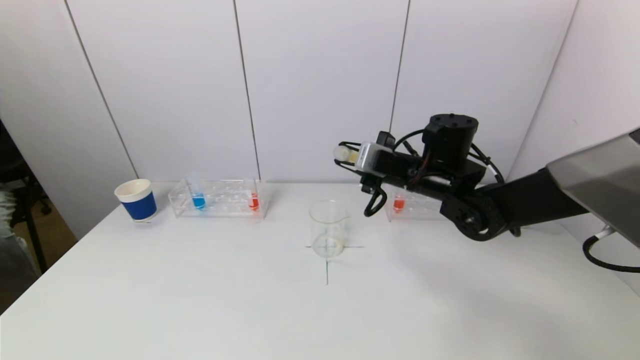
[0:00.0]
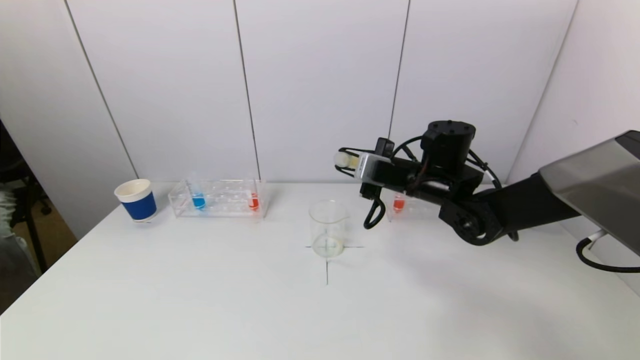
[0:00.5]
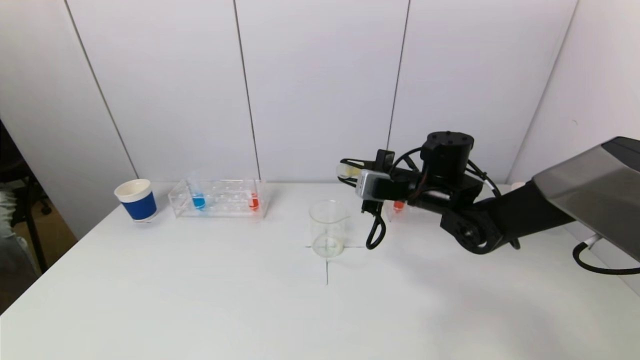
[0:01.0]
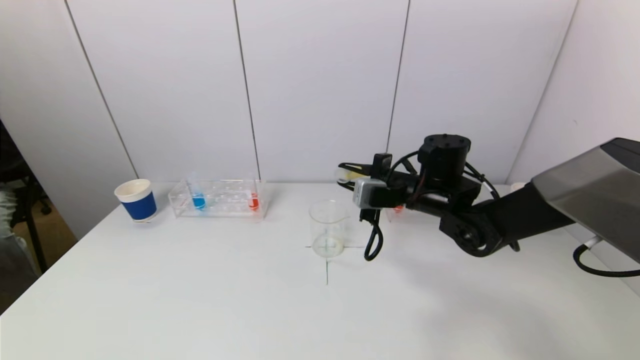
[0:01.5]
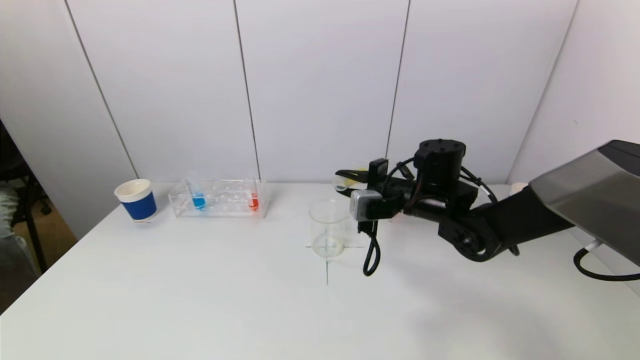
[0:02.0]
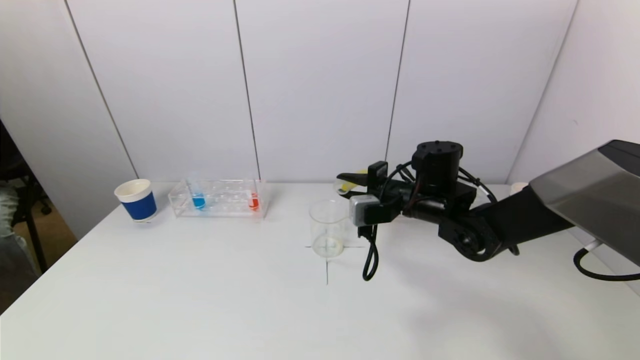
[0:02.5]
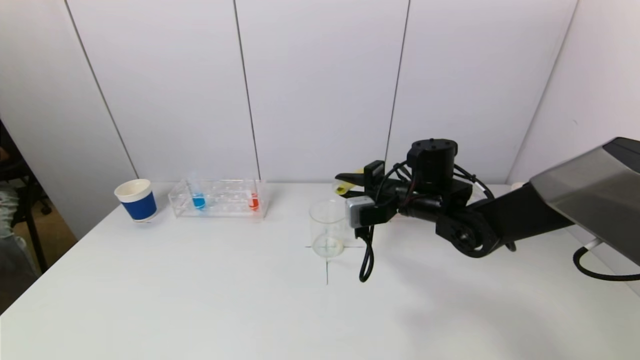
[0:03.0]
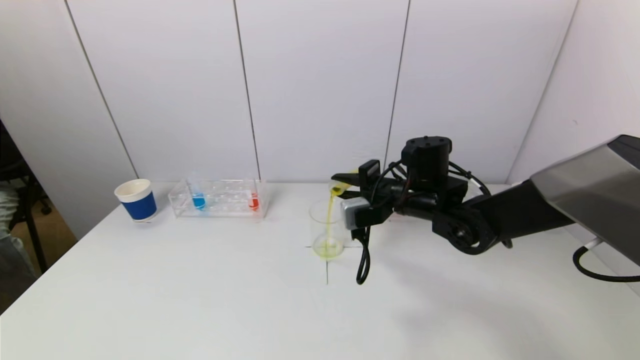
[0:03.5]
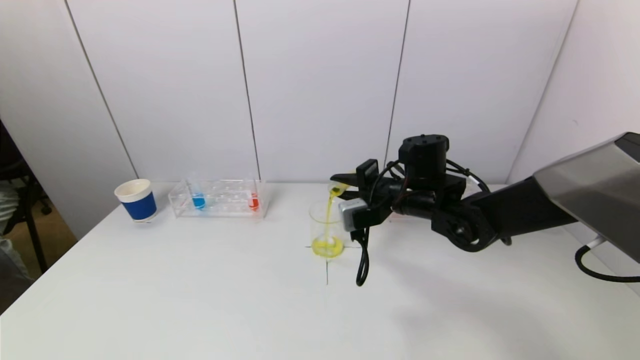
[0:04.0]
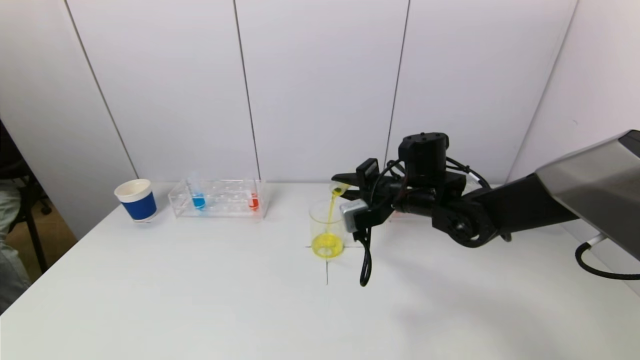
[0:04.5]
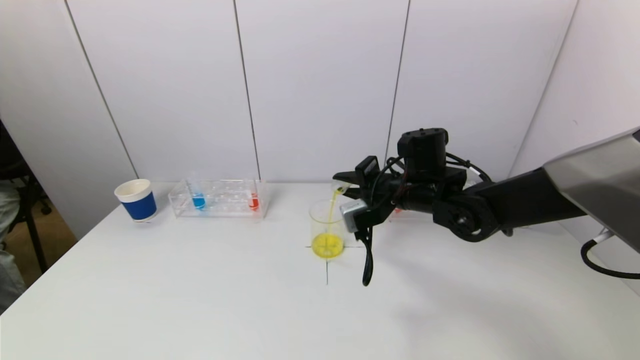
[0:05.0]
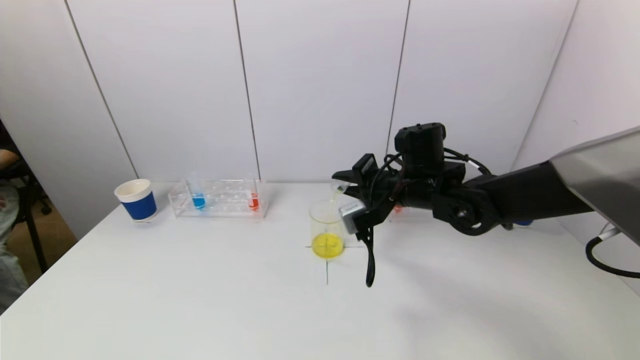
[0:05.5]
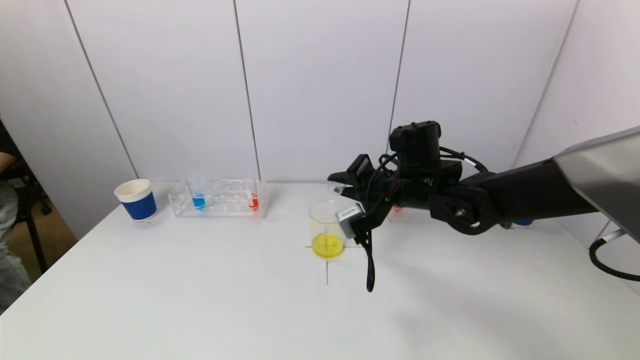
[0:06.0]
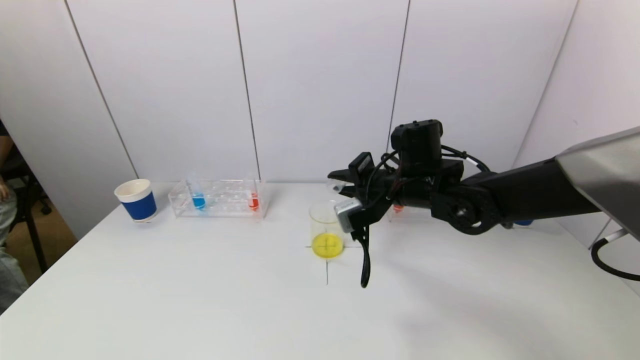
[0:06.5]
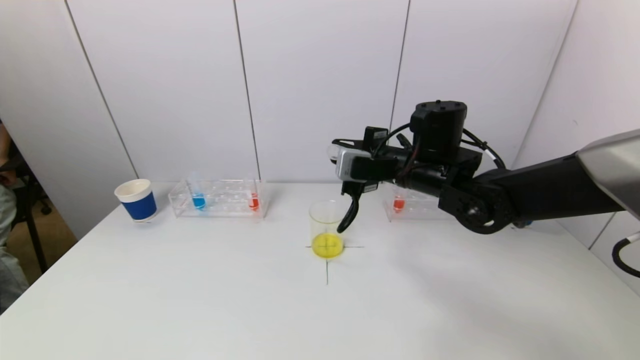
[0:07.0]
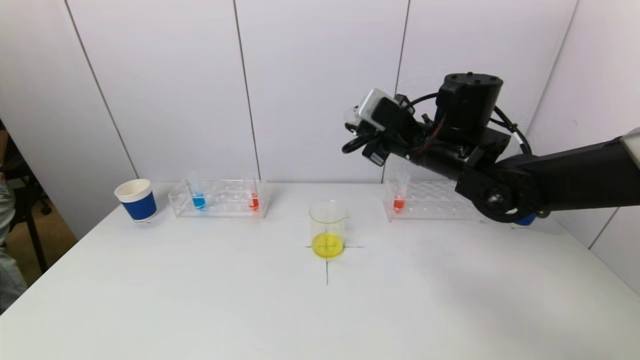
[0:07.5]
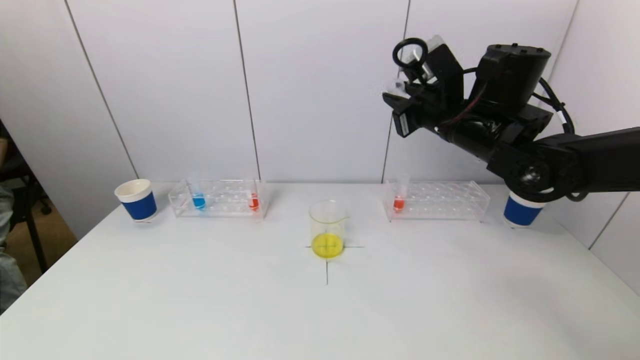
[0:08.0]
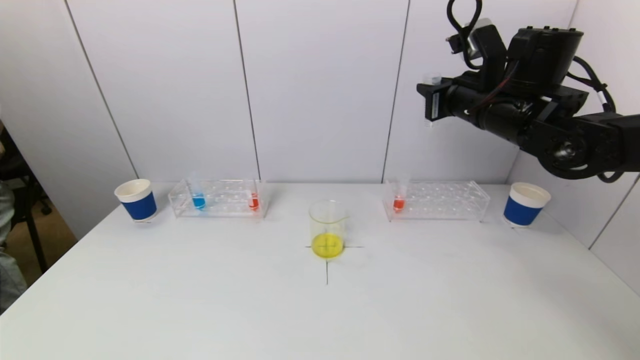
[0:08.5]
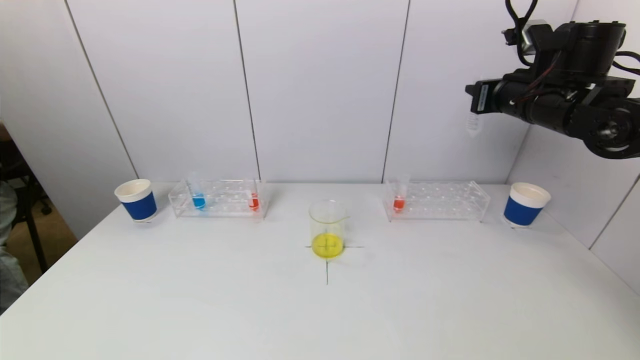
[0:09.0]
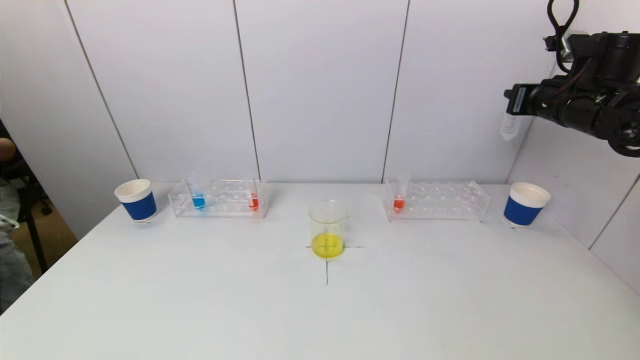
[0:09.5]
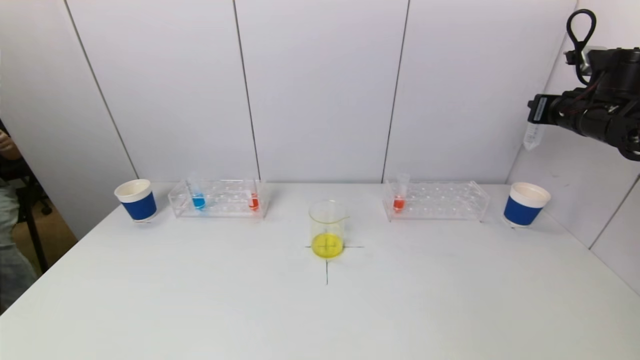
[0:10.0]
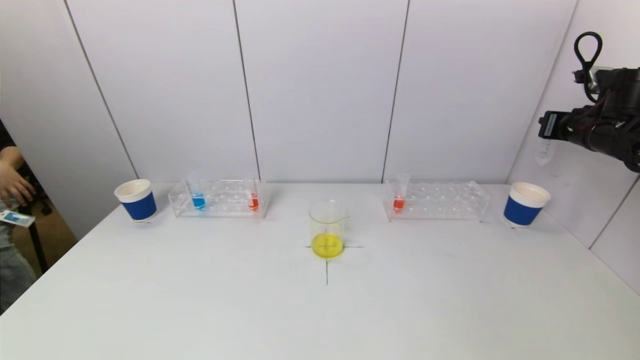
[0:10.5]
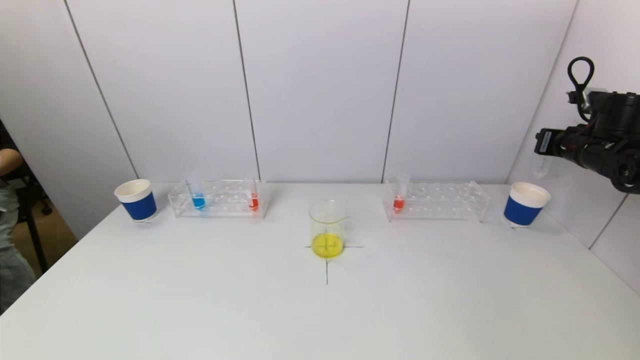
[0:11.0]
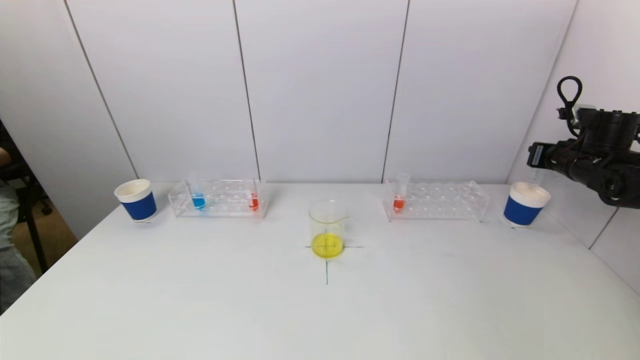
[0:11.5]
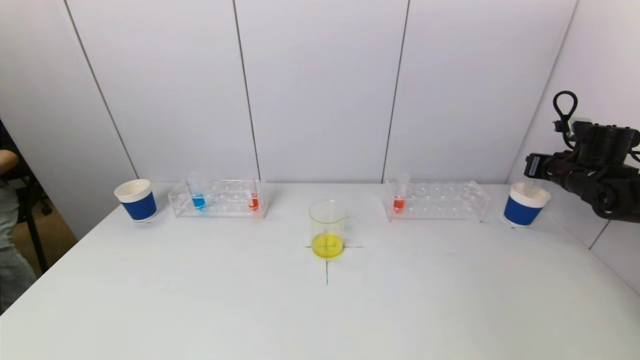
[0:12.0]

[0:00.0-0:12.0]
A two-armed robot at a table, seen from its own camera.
Task of the whole recording: pick up a test tube with pigment on left test tube rack and a test tube with pigment on right test tube rack by grippers and pour them into the beaker.
Step, 0:00.0 to 0:06.0: Pour the yellow reagent into the graduated cylinder with the right gripper.
0:00.0 to 0:02.0: There are only small adjustments of the grippers.
0:02.0 to 0:04.0: The grippers make only small movements.
0:04.0 to 0:06.0: There are only small adjustments of the grippers.
0:06.0 to 0:08.0: The right gripper goes some 10 cm upward and to the right.
0:08.0 to 0:10.0: The right gripper moves to the right, approximately 20 cm.
0:10.0 to 0:12.0: The right gripper heads downward, covering about 10 cm.

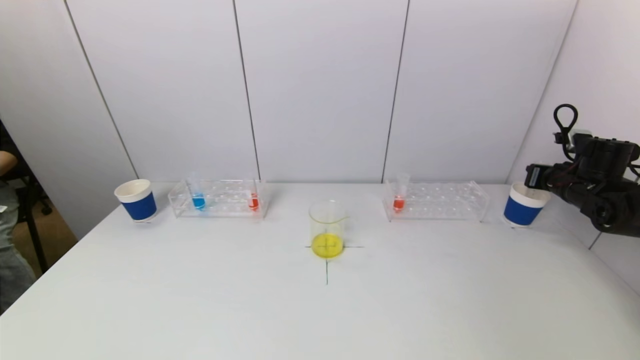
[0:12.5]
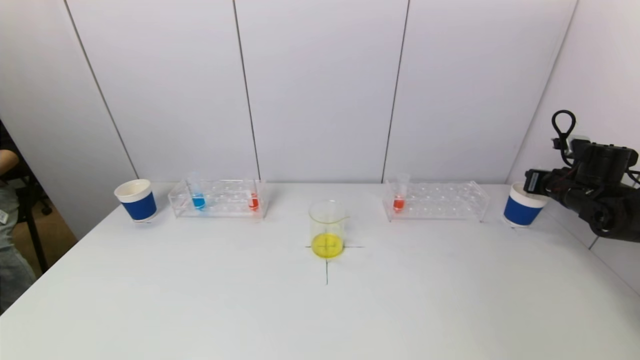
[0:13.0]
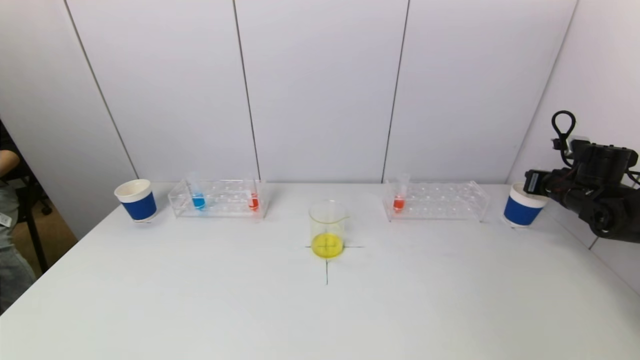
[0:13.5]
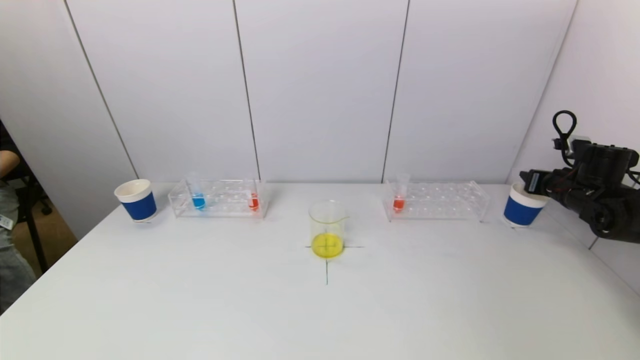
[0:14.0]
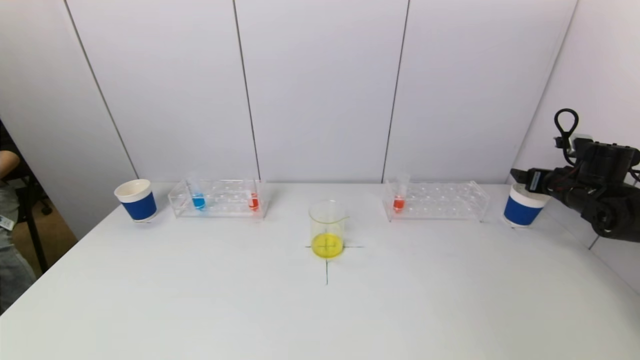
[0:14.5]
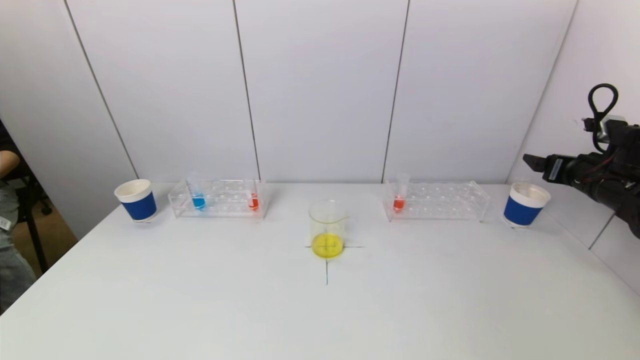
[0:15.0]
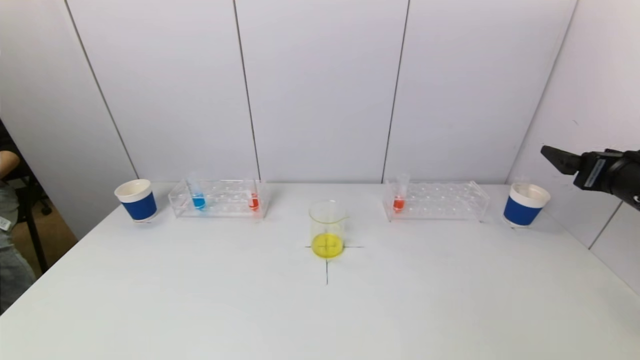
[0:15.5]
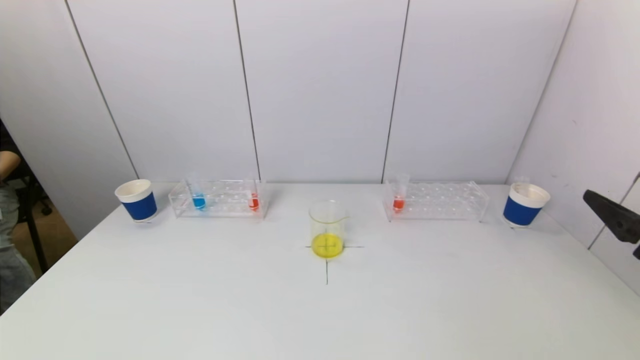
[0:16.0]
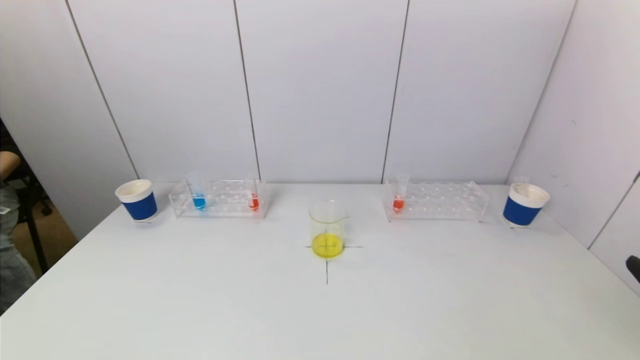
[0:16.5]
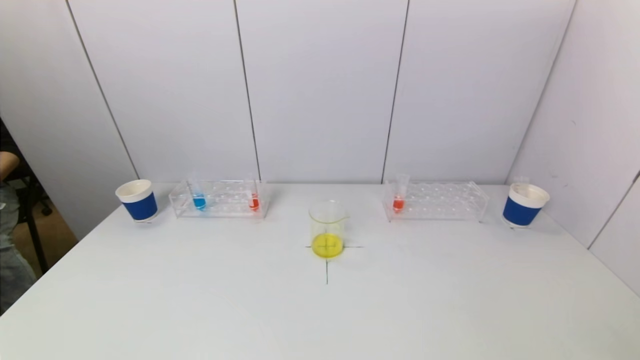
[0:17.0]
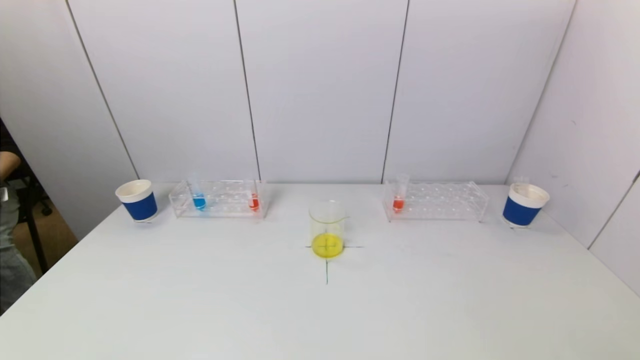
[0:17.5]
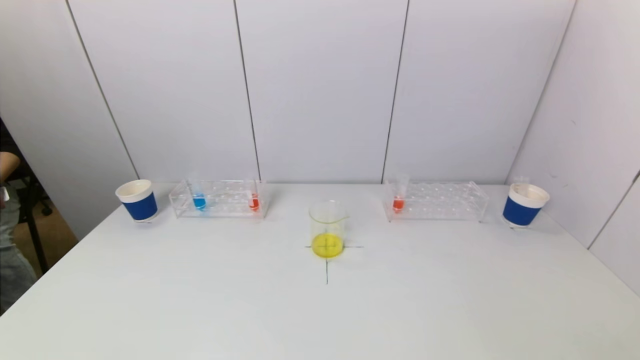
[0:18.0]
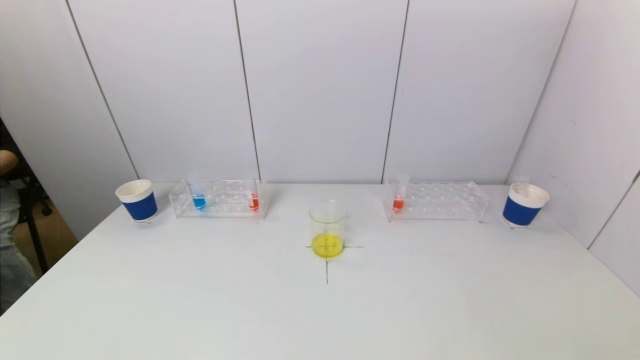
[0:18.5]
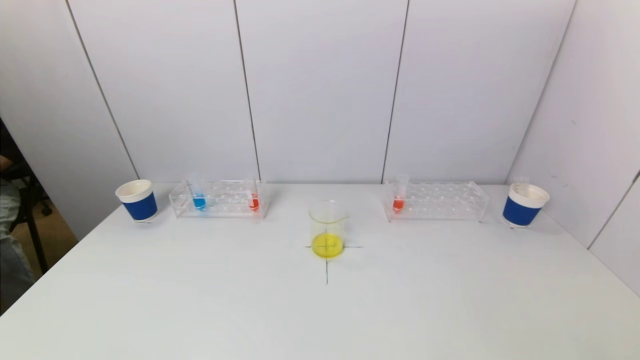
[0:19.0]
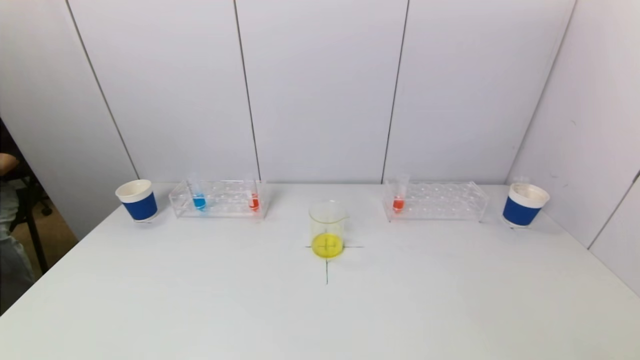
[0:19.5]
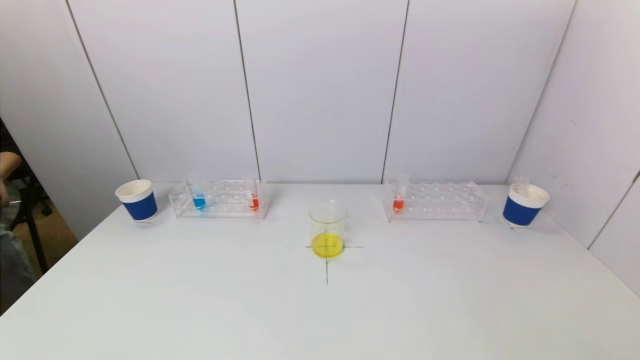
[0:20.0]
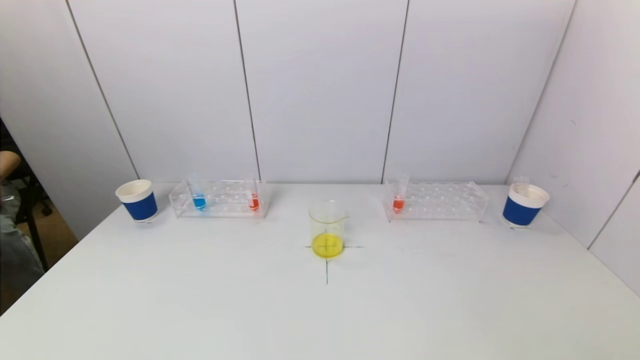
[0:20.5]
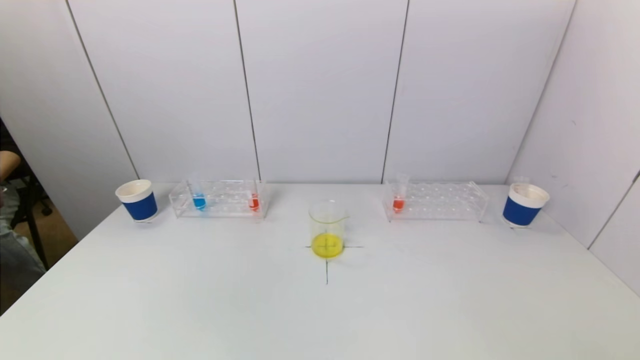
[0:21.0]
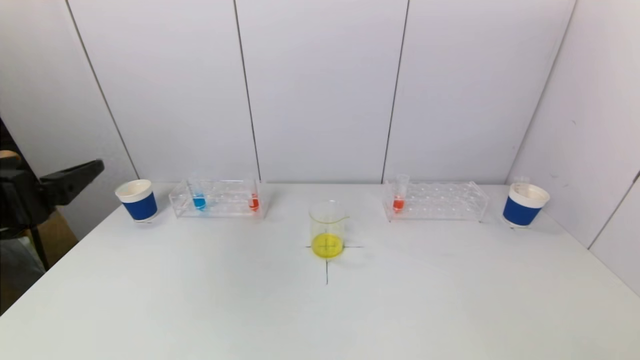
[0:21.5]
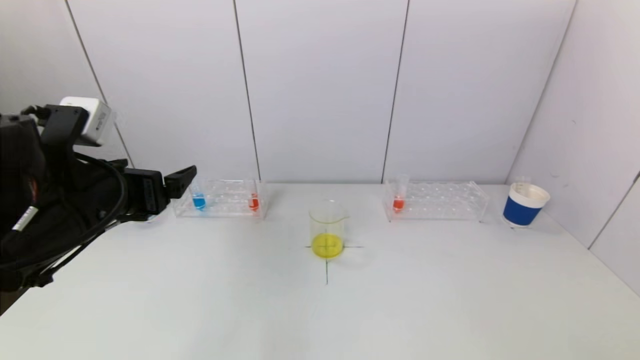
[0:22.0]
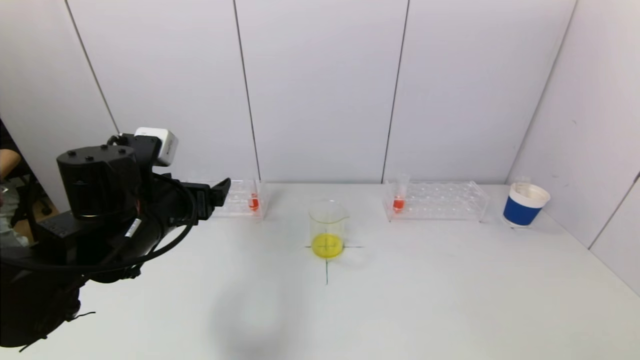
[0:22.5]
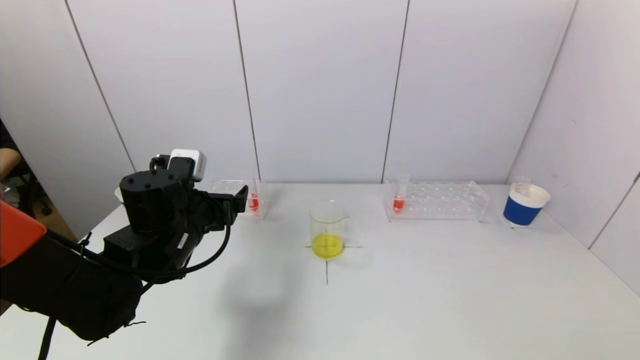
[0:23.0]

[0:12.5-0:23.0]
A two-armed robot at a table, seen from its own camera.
Task of the whole recording: pick up a test tube with pigment on left test tube rack and a test tube with pigment on right test tube rack by grippers and pour them into the beaker.
0:12.5 to 0:14.5: The right gripper opens up.
0:14.5 to 0:16.5: The right gripper heads backward, covering about 35 cm.
0:21.0 to 0:23.0: The left gripper moves forward, downward and to the right, about 30 cm.
